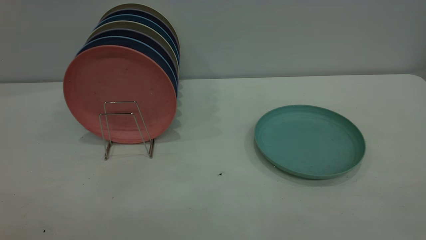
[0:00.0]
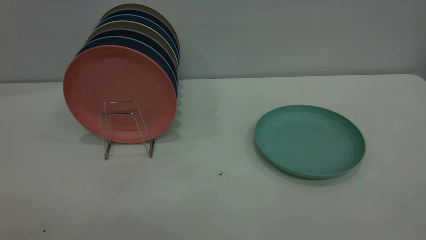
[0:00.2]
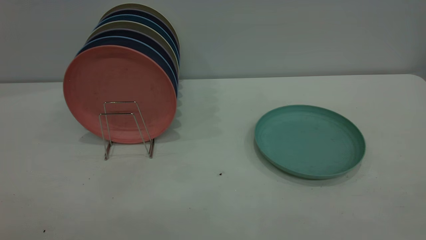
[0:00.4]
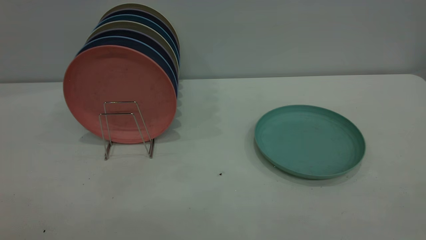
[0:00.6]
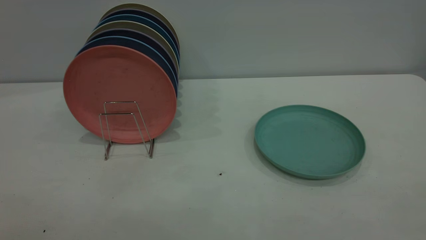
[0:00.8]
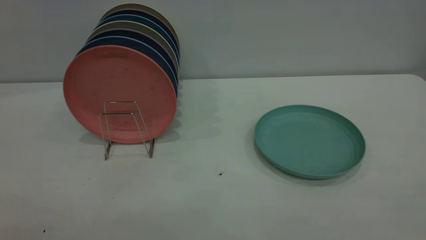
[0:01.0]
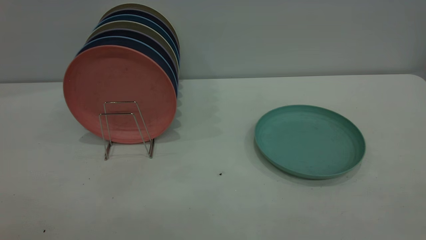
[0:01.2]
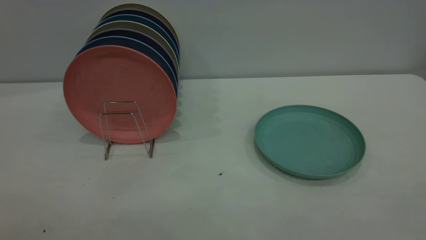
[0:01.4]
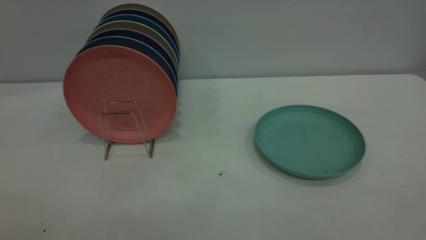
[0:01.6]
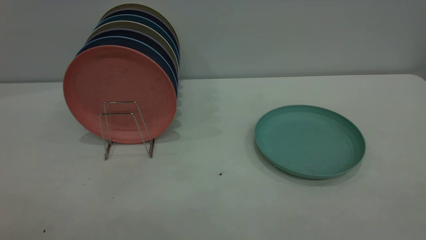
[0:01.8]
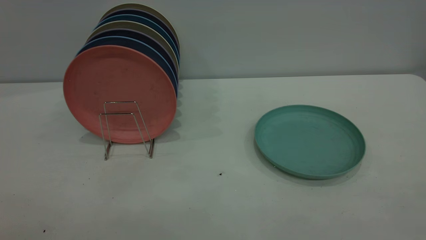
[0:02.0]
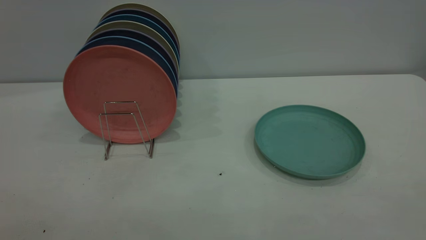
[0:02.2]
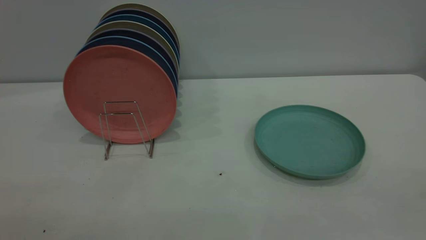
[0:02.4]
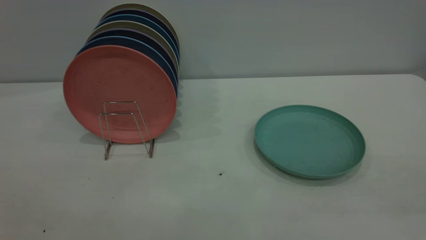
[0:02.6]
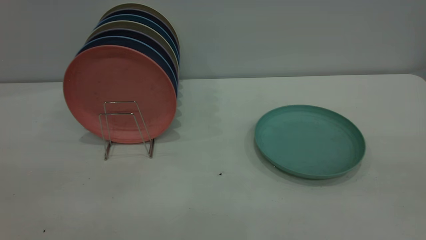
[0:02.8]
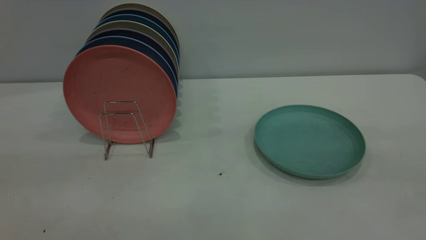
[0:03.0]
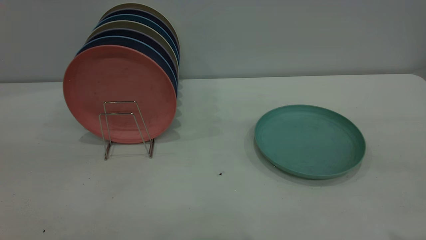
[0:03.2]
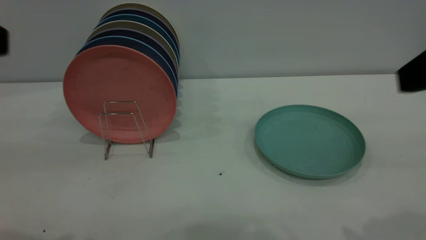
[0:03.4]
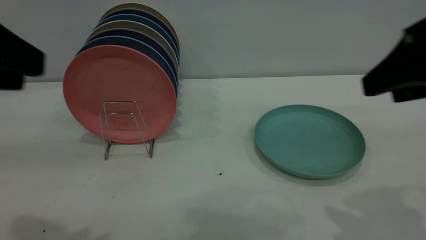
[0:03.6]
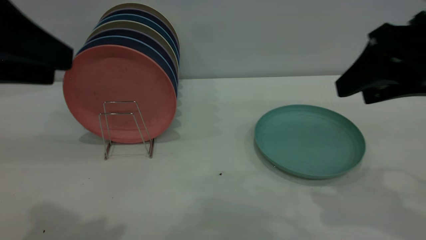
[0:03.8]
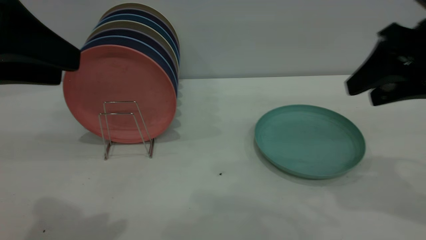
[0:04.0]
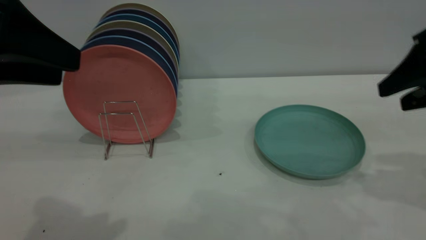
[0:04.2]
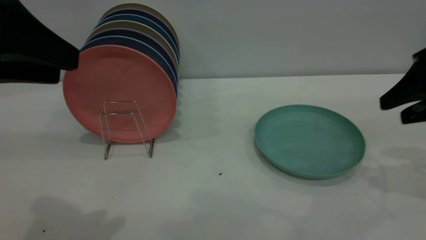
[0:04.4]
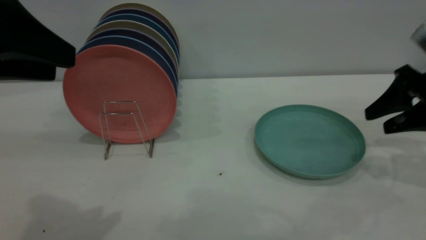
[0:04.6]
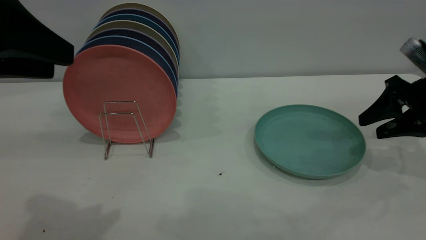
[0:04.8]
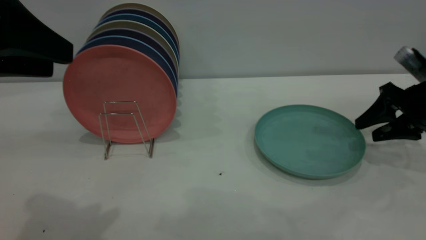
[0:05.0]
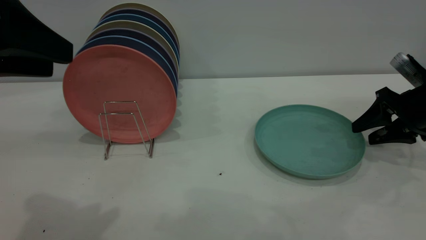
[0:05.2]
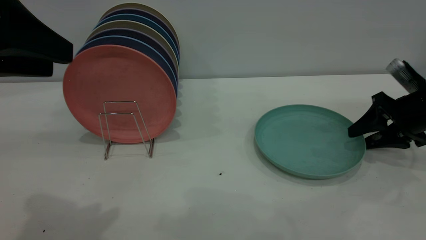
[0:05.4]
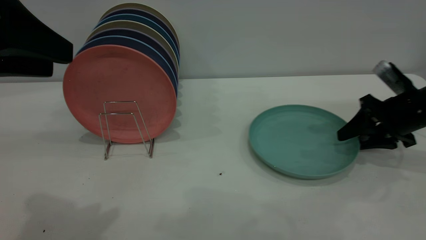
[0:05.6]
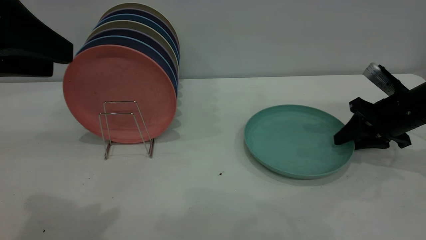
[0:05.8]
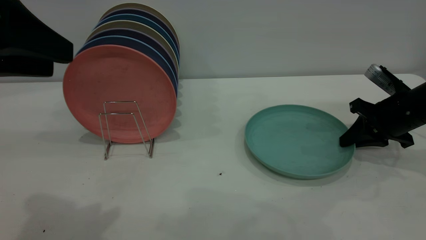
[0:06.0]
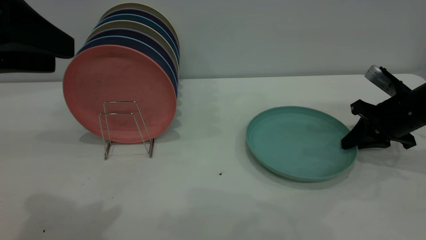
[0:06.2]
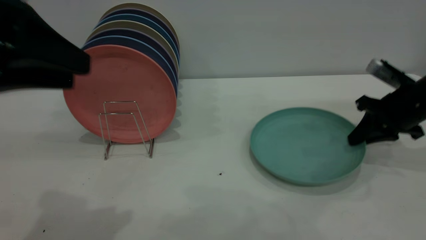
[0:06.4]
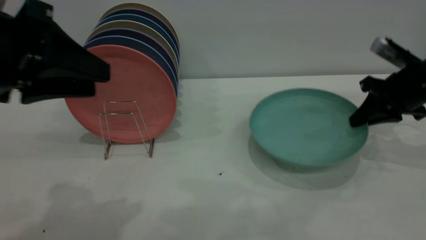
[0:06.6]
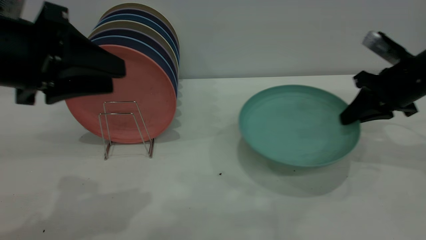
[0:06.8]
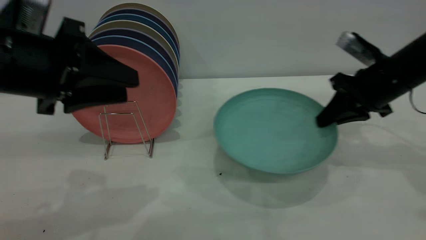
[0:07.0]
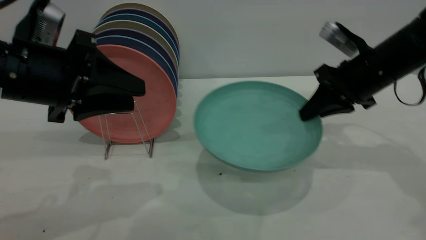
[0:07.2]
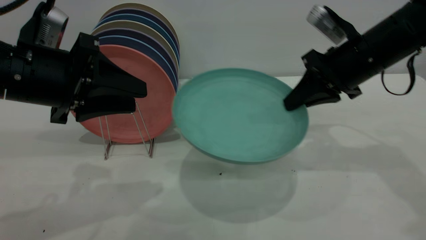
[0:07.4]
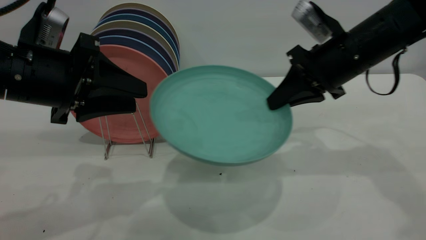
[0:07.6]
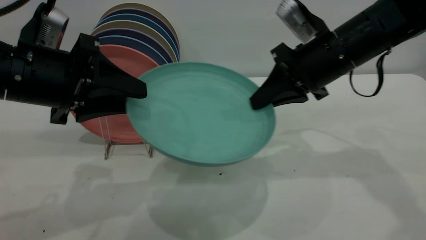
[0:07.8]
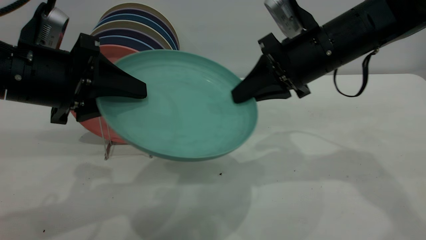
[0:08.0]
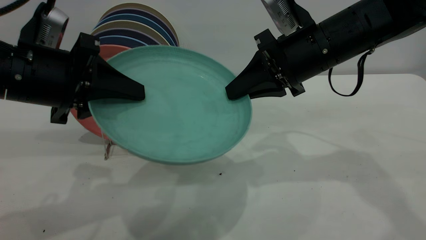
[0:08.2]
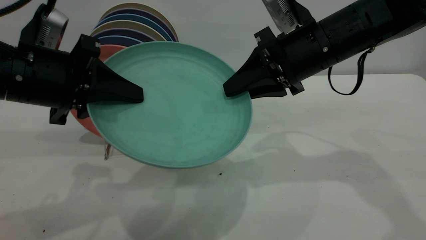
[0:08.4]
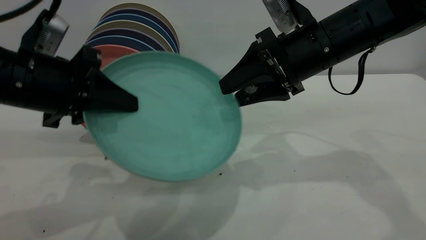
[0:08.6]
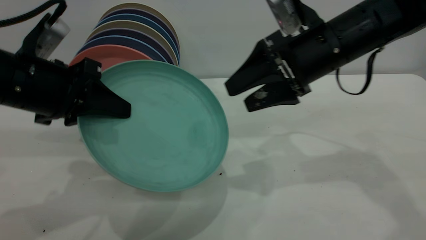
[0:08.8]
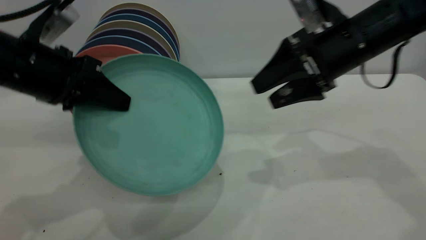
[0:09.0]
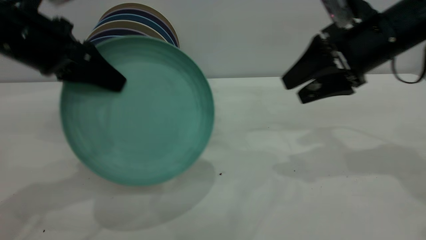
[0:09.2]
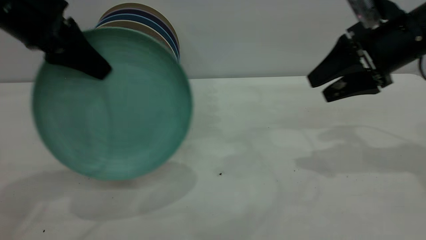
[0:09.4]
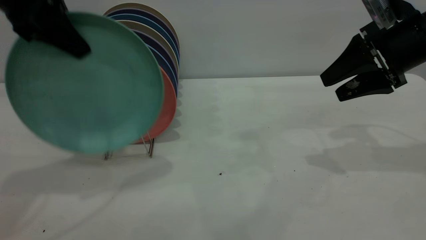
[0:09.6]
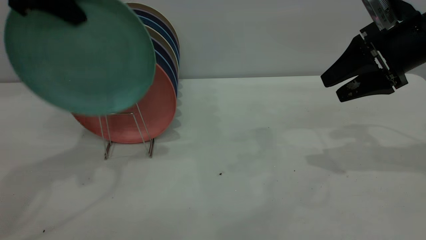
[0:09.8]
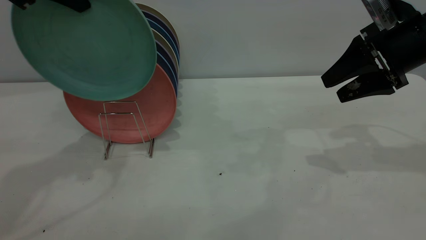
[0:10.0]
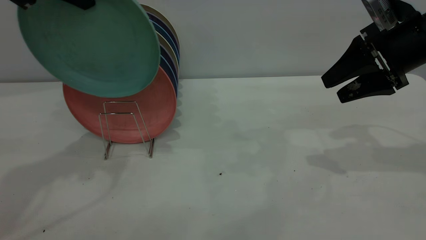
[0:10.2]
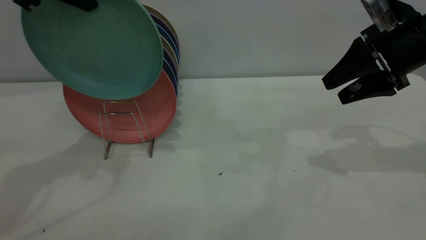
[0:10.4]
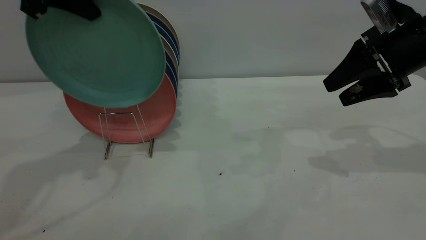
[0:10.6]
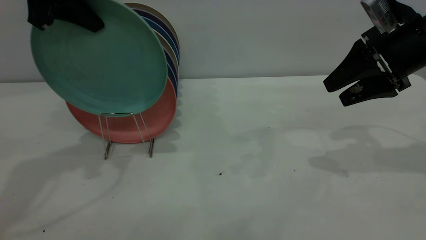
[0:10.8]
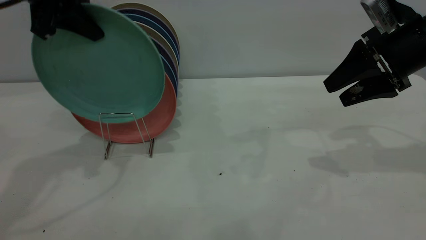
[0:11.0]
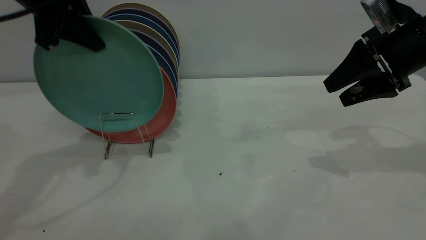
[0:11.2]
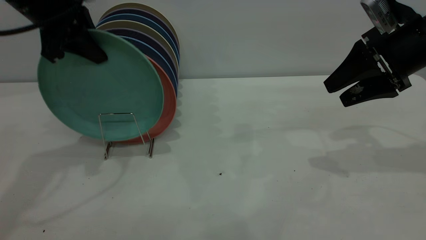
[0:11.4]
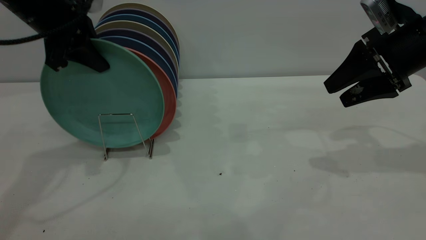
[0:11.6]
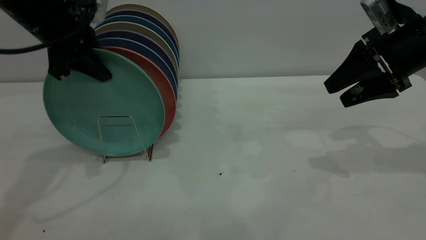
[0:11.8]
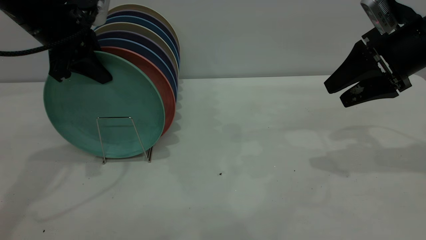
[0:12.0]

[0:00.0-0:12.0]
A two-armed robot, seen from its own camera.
Task of the whole recording: the right gripper grasp the green plate, the right gripper pass the green plate to the left gripper, and the left gripper place the green plate on the plate rack.
Step, 0:00.0 to 0:06.6: Pick up the plate with the right gripper.
Step, 0:06.8 to 0:08.6: Pass the plate from the right gripper to the left gripper.
0:00.0 to 0:01.6: Both grippers stay put.
0:03.0 to 0:04.4: The right gripper moves forward and downward, approximately 25 cm; the left gripper heads forward and downward, covering about 10 cm.
0:04.4 to 0:06.0: The right gripper is displaced downward and forward by roughly 15 cm, and closes up.
0:06.0 to 0:07.6: The right gripper moves to the left and upward, approximately 15 cm; the left gripper travels downward and forward by approximately 10 cm.
0:07.6 to 0:09.0: The left gripper closes. Meanwhile the right gripper opens.
0:09.0 to 0:10.4: The right gripper moves to the right, approximately 10 cm. Meanwhile the left gripper is displaced upward and forward by about 15 cm.
0:10.4 to 0:12.0: The left gripper travels downward by roughly 10 cm.

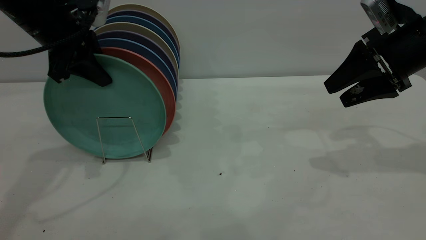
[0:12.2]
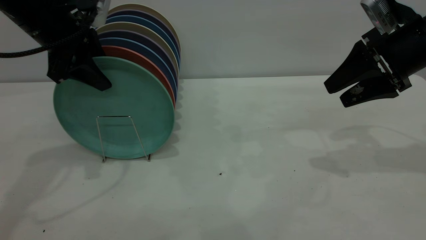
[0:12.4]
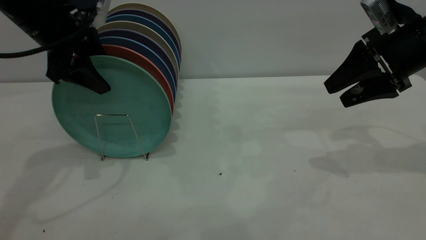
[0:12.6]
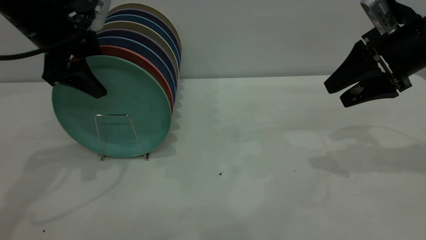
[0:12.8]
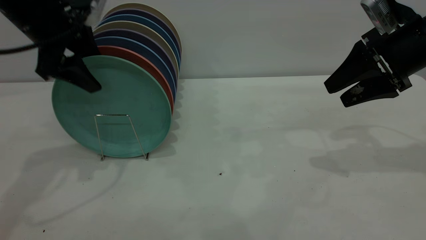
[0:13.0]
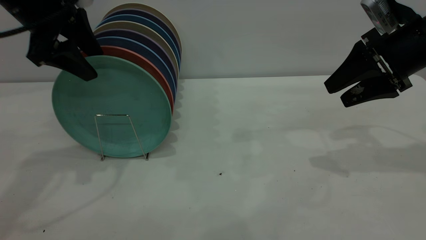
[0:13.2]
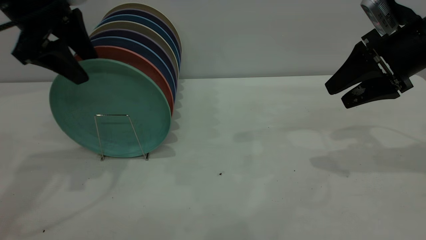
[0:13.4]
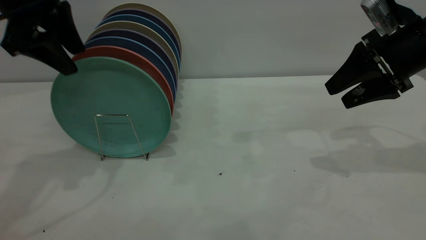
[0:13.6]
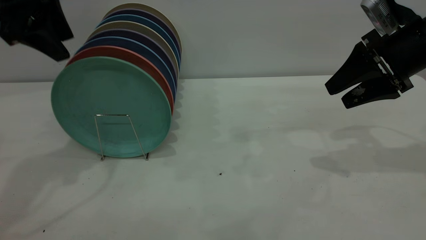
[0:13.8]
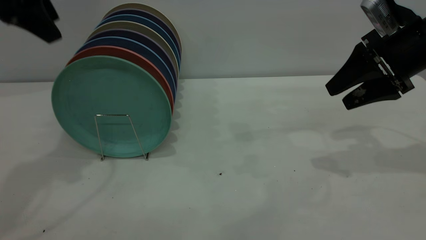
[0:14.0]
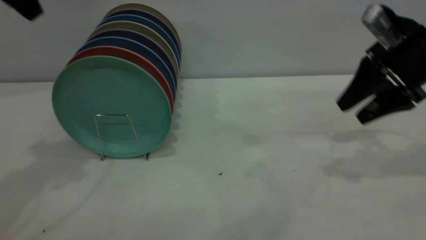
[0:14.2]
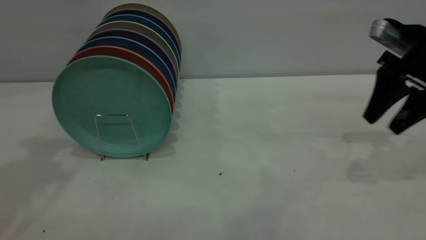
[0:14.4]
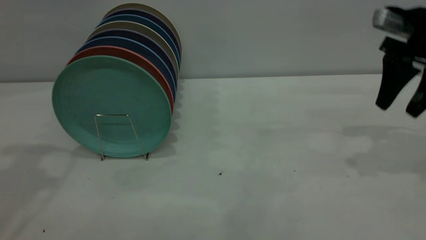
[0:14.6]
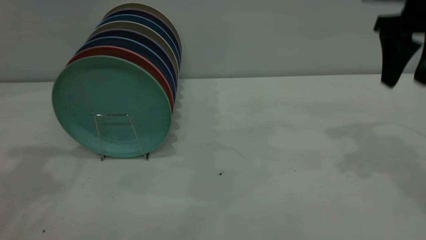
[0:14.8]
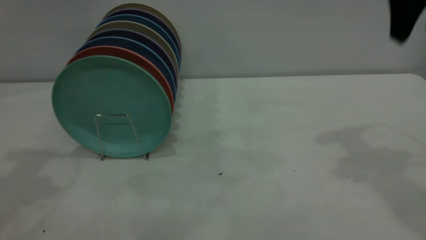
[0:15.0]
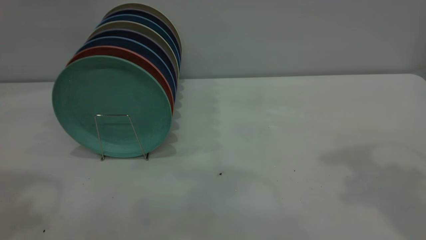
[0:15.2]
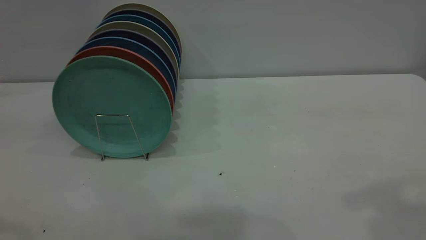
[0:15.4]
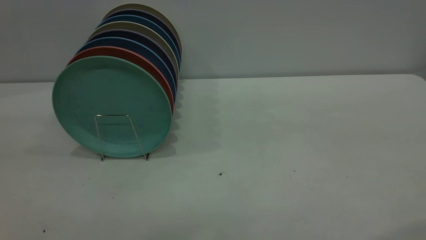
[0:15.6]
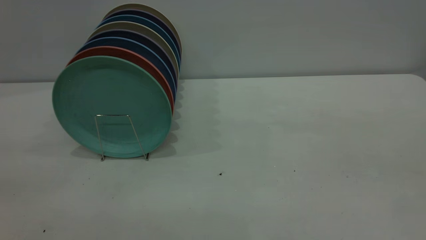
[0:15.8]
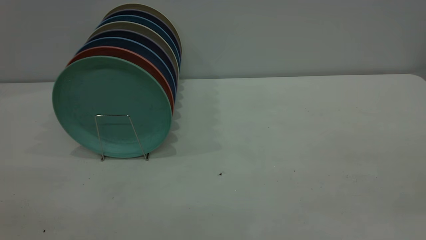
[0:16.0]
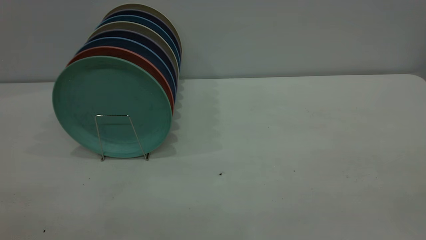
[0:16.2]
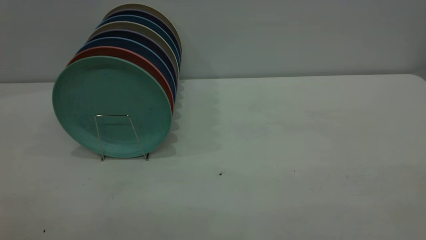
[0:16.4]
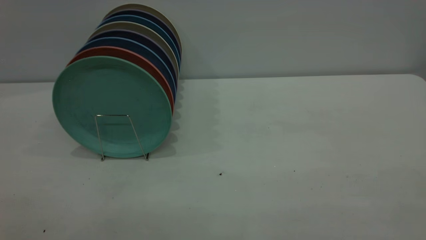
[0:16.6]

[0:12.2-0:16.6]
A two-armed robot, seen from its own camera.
Task of the whole recording: the right gripper grasp the green plate, the right gripper pass the green plate to the left gripper, and the left gripper place the green plate on the plate rack.
0:12.2 to 0:13.6: The left gripper goes some 5 cm upward, and opens.
0:13.6 to 0:15.2: The right gripper is displaced upward and backward by some 25 cm, while the left gripper is displaced backward and upward by approximately 20 cm.
